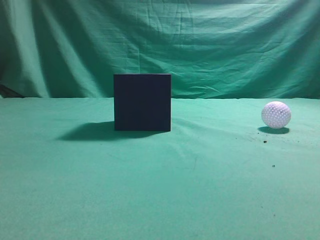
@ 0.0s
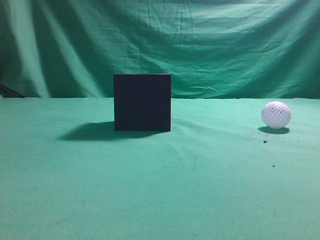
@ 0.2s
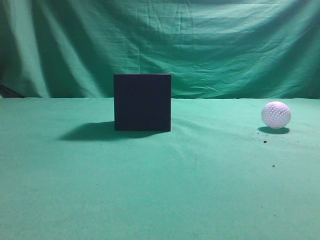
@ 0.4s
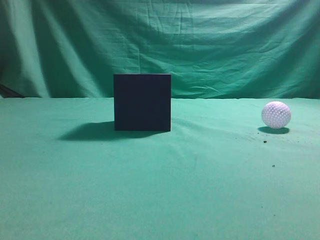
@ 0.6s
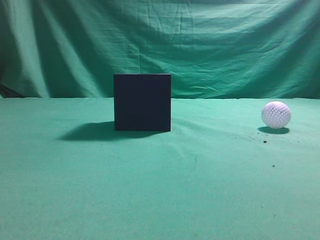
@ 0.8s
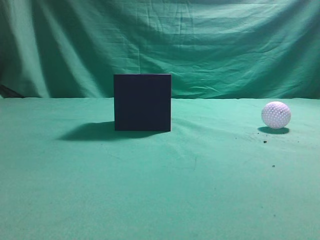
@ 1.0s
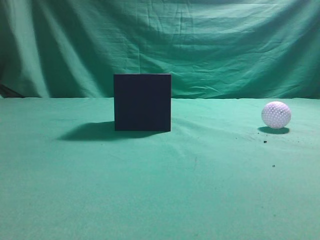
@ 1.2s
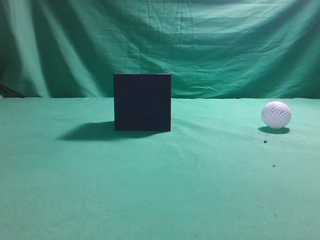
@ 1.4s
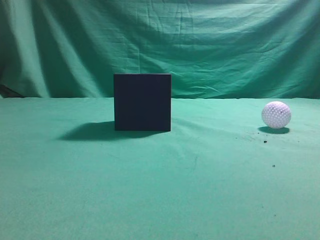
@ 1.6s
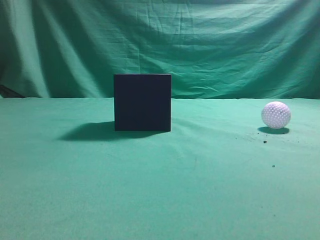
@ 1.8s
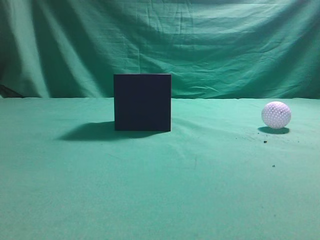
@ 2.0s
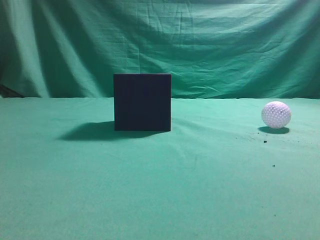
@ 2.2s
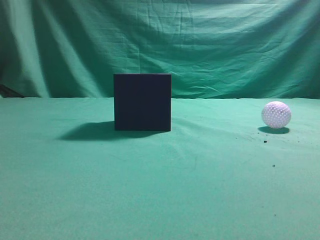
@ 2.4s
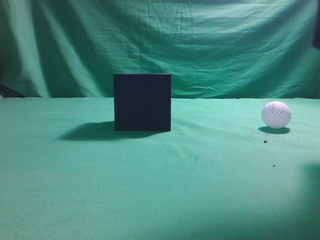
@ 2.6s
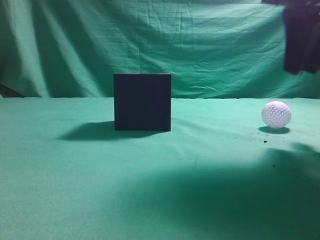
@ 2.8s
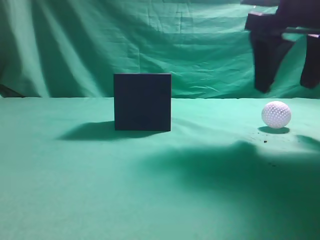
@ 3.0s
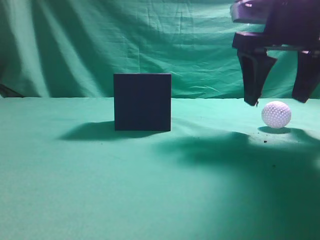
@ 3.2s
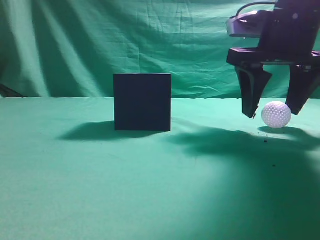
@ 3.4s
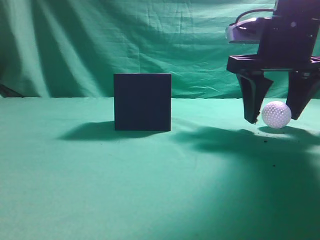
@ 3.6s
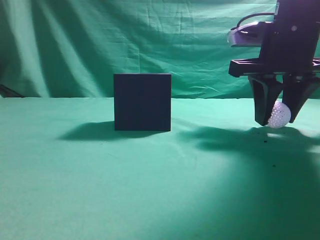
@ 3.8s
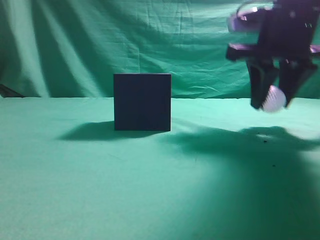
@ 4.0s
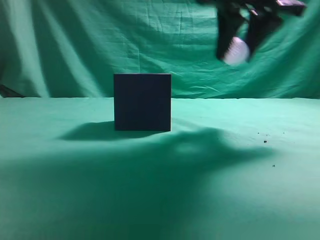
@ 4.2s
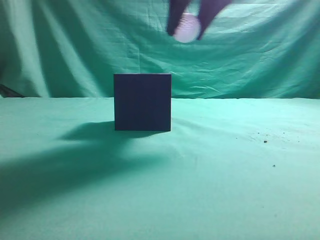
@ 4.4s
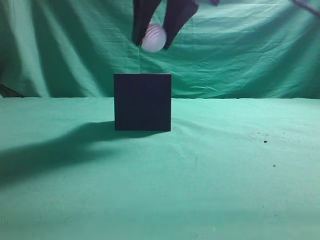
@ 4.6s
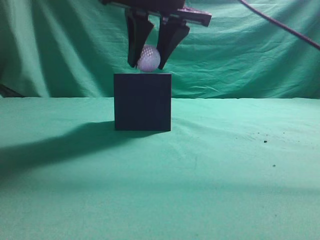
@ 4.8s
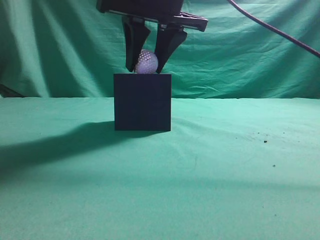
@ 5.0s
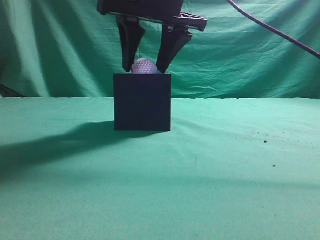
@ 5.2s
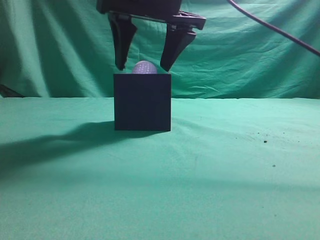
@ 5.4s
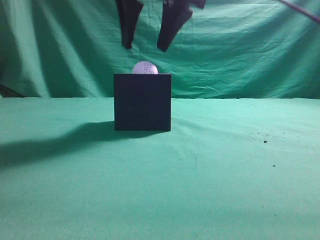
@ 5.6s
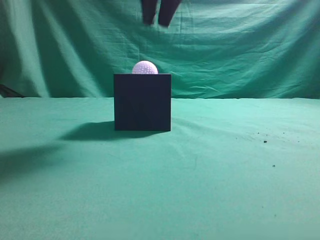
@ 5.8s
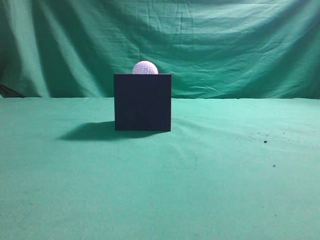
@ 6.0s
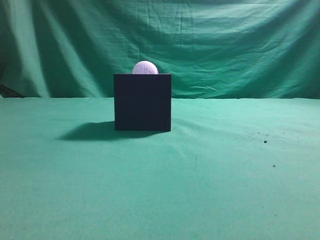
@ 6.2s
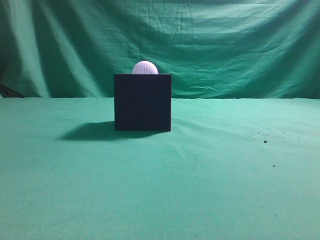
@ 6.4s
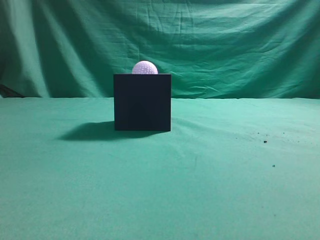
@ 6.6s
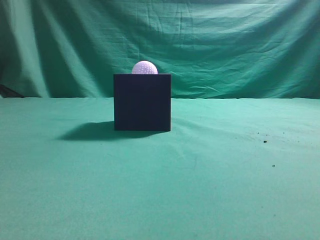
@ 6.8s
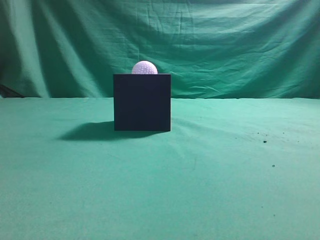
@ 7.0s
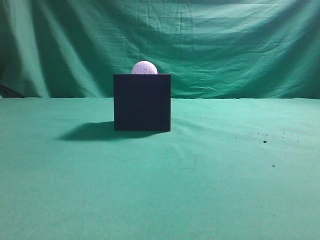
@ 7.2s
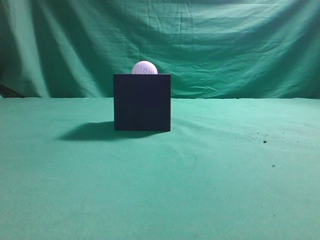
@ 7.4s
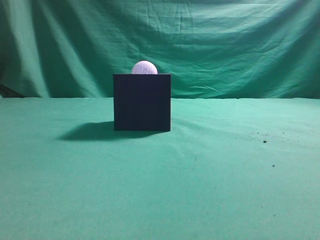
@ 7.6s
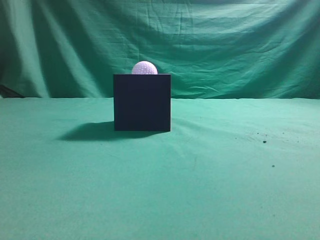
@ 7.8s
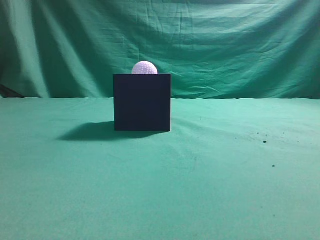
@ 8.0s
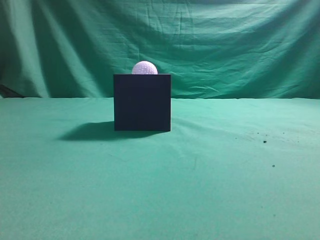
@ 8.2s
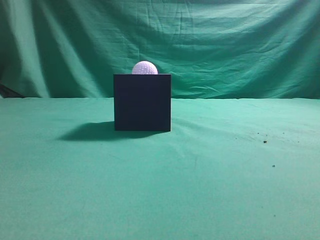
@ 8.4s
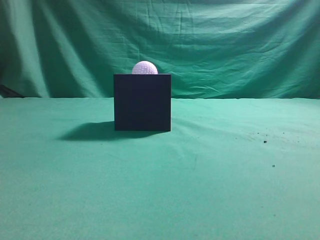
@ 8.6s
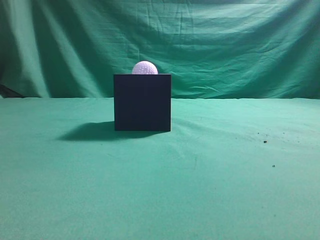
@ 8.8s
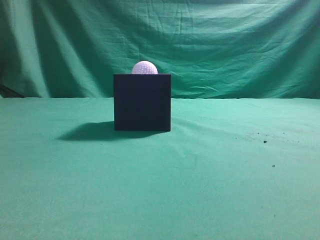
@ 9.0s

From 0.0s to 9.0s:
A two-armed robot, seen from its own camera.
Task of the whole recording: Pick up the ball and place it in the circular groove above the cube.
Step, from 0.0s to 3.2s: Grasp the sphere on the table.
Step, from 3.4s to 4.6s: Place the sphere into the sphere-shaped recess.
From 1.6s to 3.0s: The right gripper moves forward and to the left, approximately 25 cm, and opens its fingers.
From 3.0s to 4.4s: The right gripper heads to the left and upward, covering roughly 10 cm, and closes up.
From 4.4s to 6.0s: The right gripper travels upward by some 5 cm, and closes its fingers.
